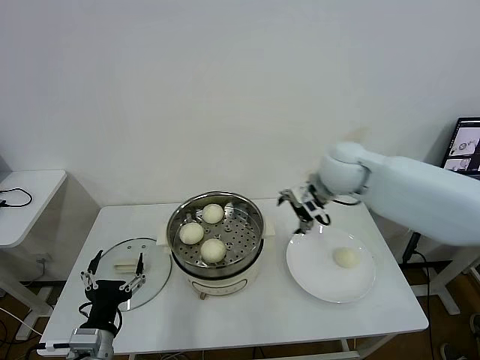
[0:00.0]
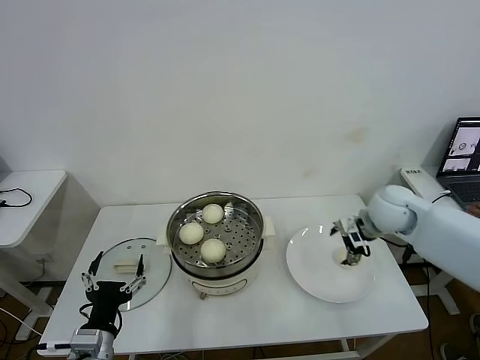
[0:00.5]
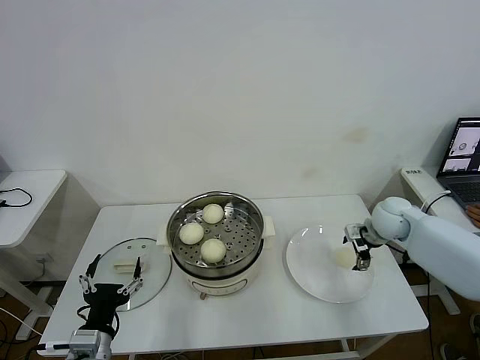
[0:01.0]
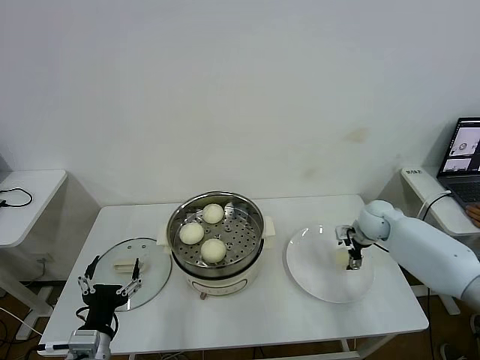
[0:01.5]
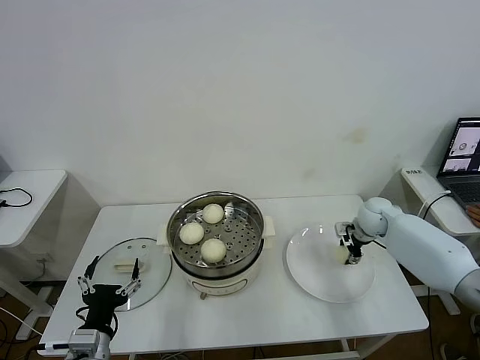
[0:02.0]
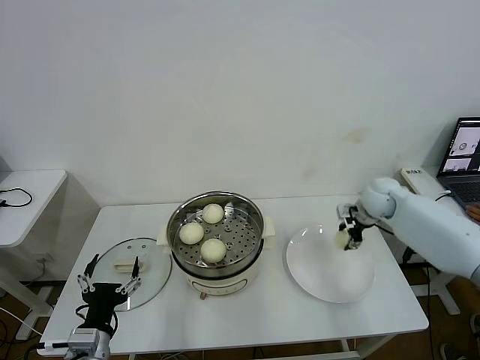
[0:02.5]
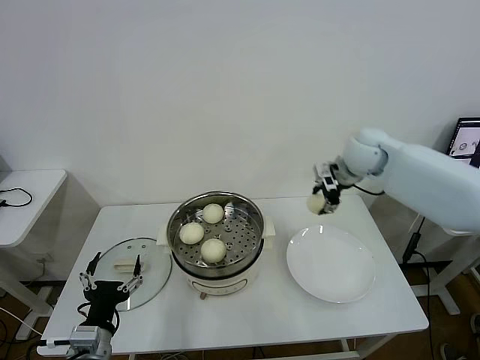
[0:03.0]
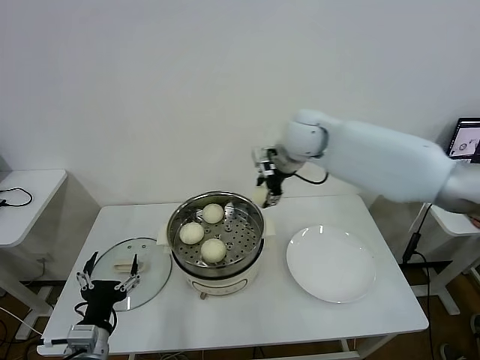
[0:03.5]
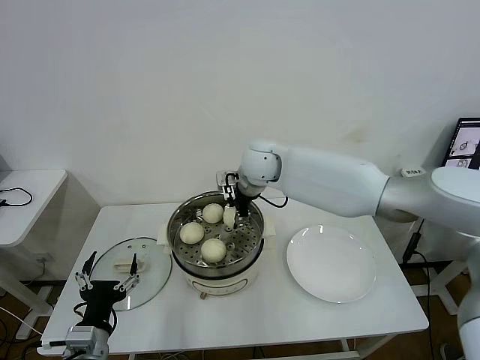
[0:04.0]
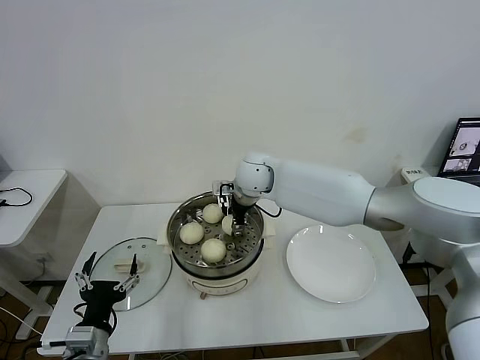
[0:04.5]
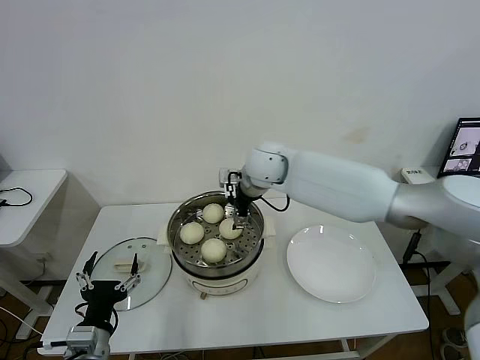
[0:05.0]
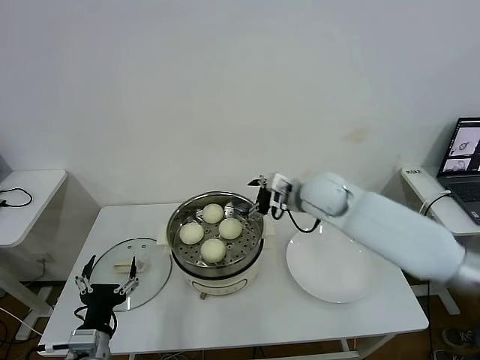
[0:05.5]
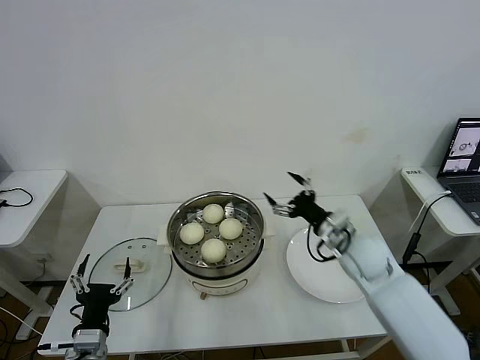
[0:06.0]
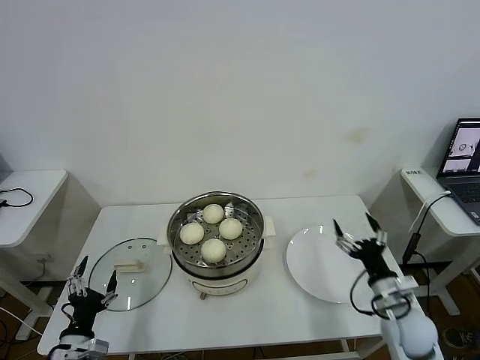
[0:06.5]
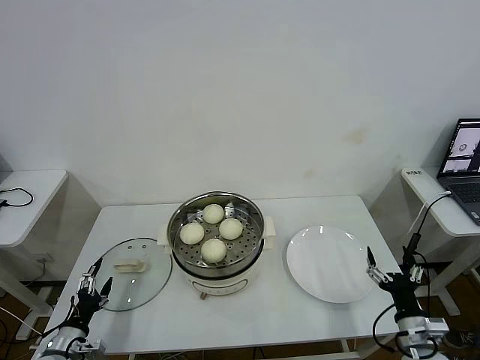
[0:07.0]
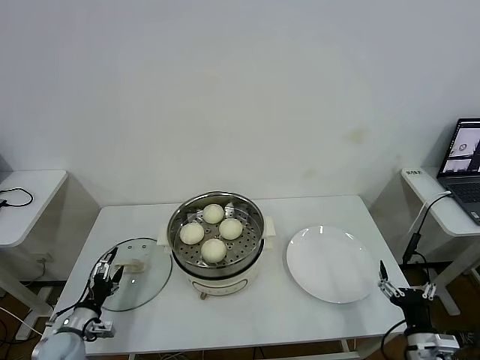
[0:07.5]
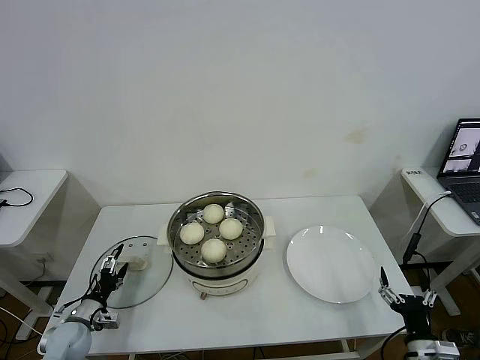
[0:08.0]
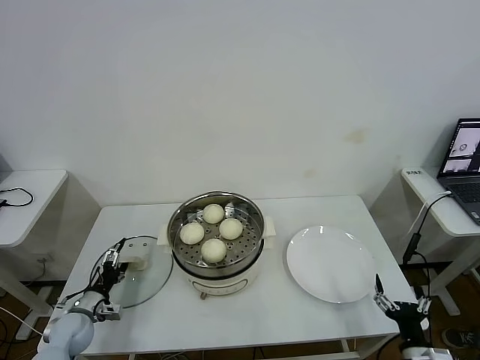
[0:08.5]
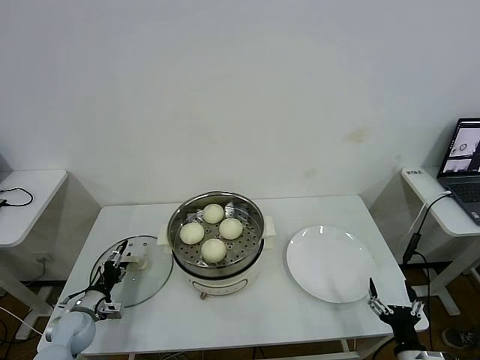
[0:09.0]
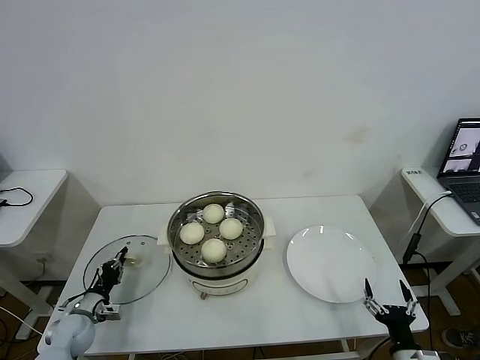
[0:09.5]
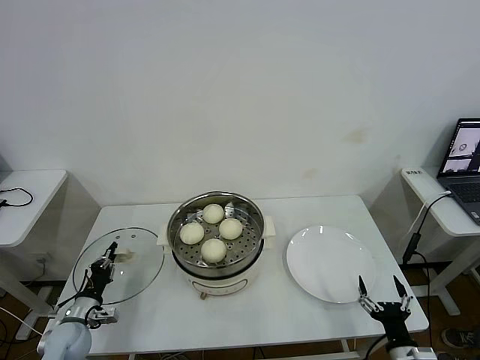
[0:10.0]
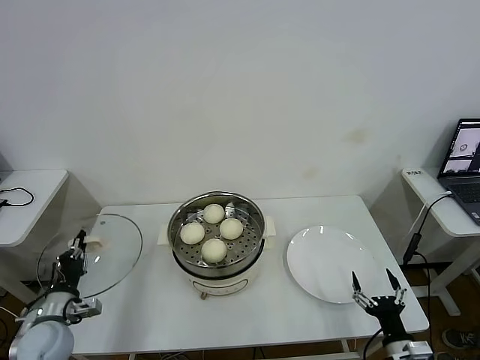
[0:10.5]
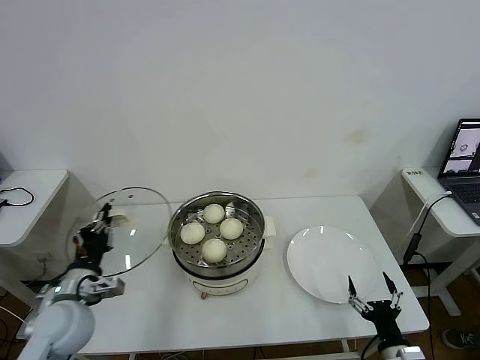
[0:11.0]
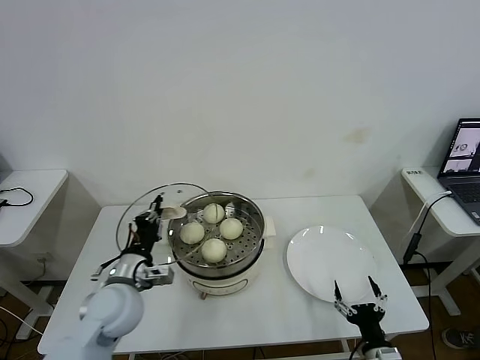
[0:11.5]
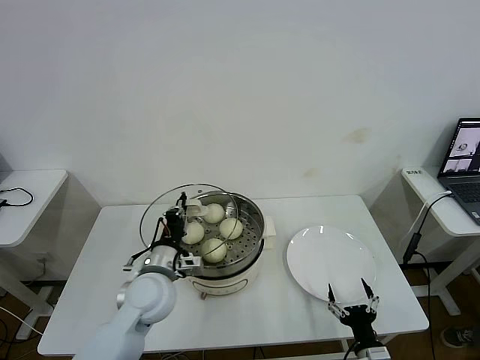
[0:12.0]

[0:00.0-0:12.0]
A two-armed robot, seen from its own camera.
Task of the whole recording: take steamed baozi put them in steamer then cover it.
Step, 0:00.0 to 0:01.5: Grasp the baozi in the plate with right gripper.
Step, 0:02.5 to 0:04.5: Place the baozi on the steamer with right gripper.
Step, 0:05.0 to 0:09.5: Grasp the pot lid with left gripper.
0:00.0 to 0:02.0: The right gripper heads downward and to the right, covering roughly 25 cm, and closes up.
0:02.0 to 0:04.0: The right gripper heads to the left and upward, covering roughly 35 cm.
0:04.0 to 0:06.0: The right gripper shifts roughly 30 cm to the right, backward and downward, and opens its fingers.
0:06.0 to 0:08.0: The left gripper travels to the left, downward and forward by about 20 cm. The right gripper heads backward, downward and to the right, covering some 30 cm.
0:08.0 to 0:10.0: The left gripper closes up.
0:10.0 to 0:12.0: The right gripper heads to the left, covering about 5 cm. The left gripper is displaced to the right and upward by about 30 cm.

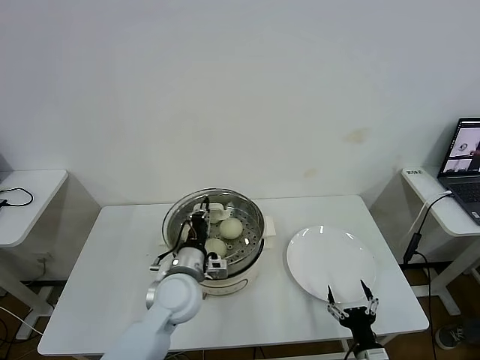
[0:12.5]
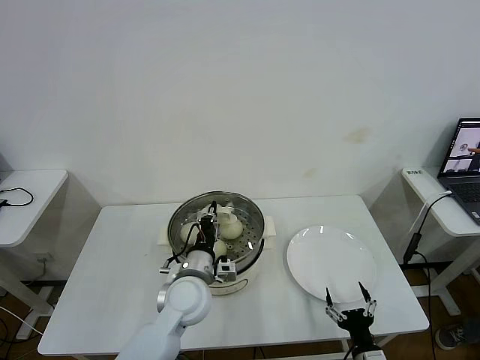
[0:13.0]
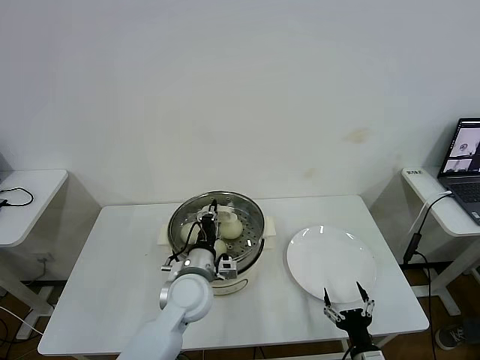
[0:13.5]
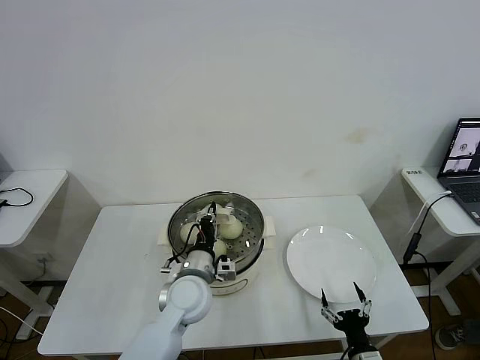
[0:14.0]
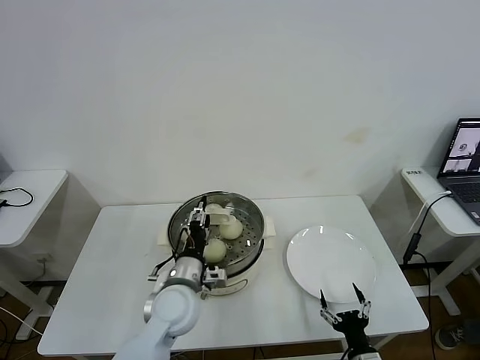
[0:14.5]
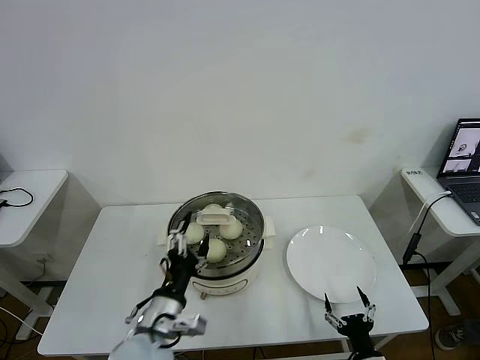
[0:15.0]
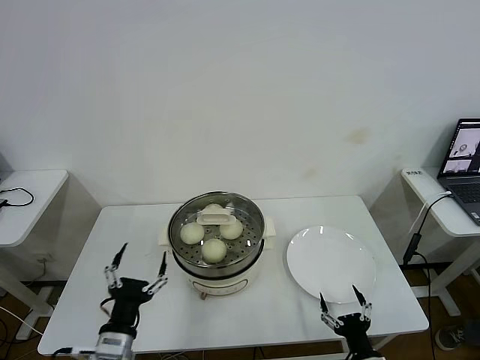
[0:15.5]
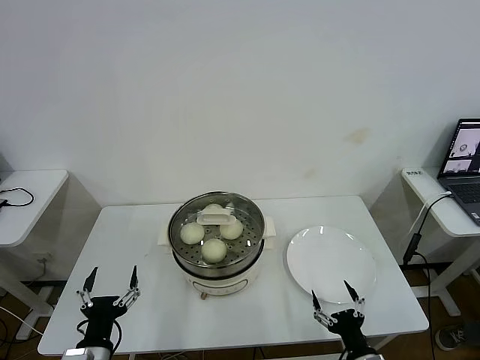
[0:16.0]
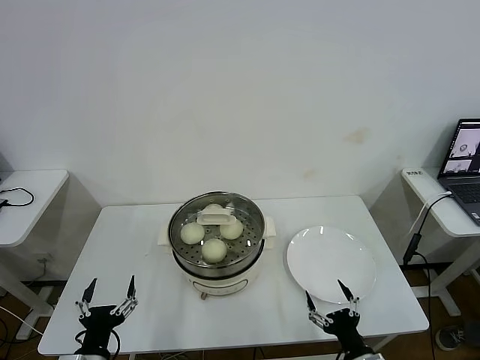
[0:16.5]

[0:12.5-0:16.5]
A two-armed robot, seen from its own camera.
Task of the whole recording: take steamed baozi put them in steamer then cover it.
Step, 0:12.5 to 0:14.5: Place the pot lid on the steamer with left gripper.
0:12.5 to 0:14.5: The left gripper opens up.
0:14.5 to 0:16.5: The left gripper shifts some 25 cm backward and to the left, and opens.
